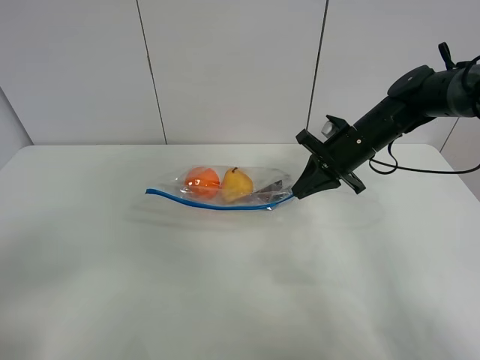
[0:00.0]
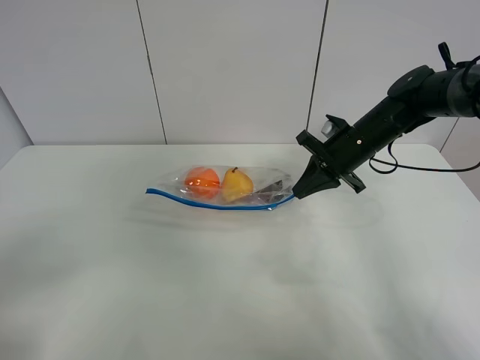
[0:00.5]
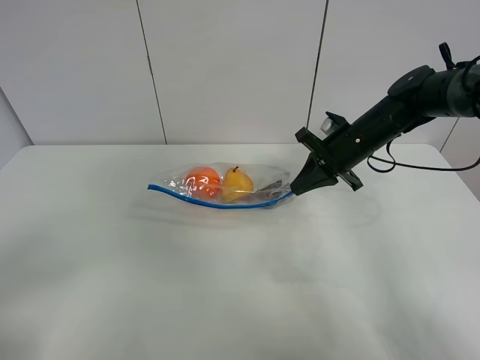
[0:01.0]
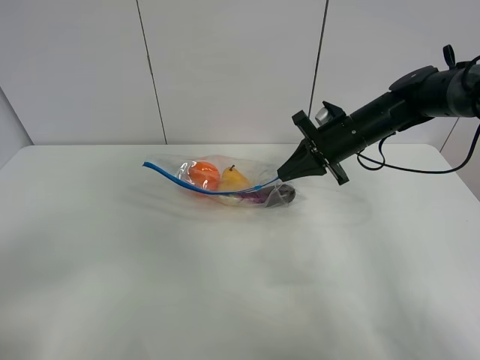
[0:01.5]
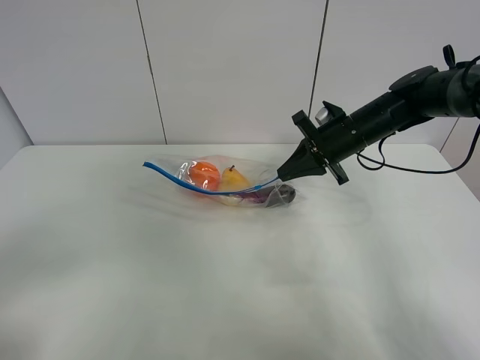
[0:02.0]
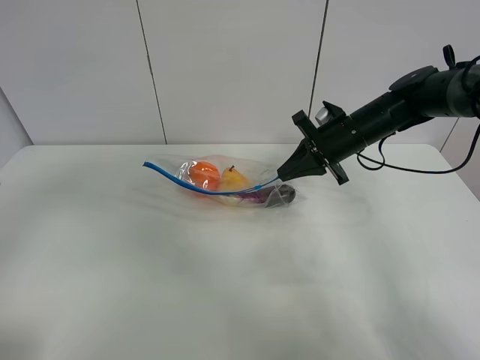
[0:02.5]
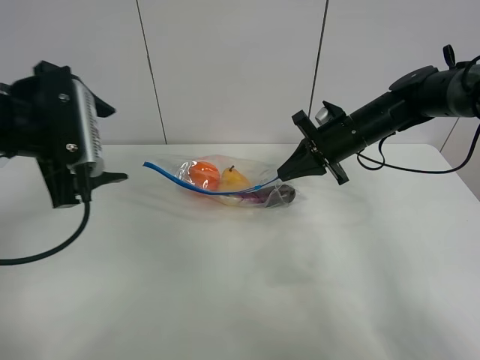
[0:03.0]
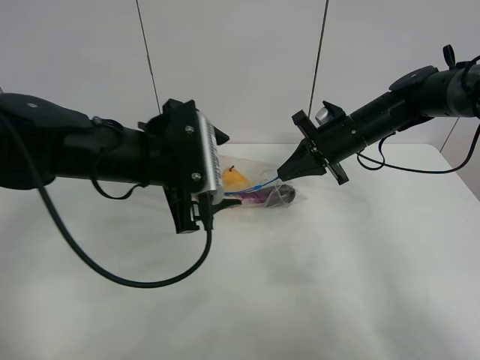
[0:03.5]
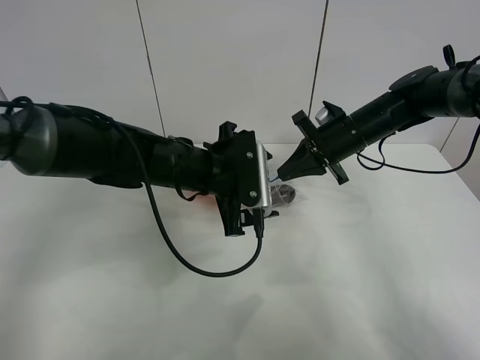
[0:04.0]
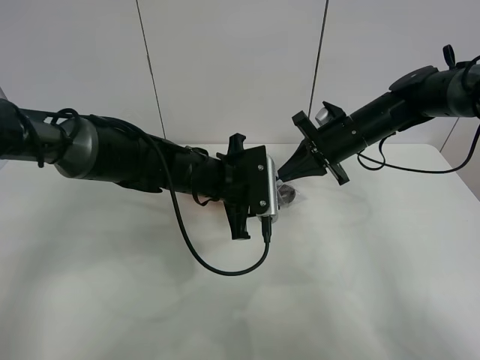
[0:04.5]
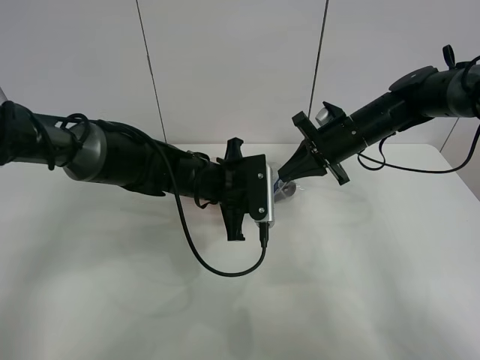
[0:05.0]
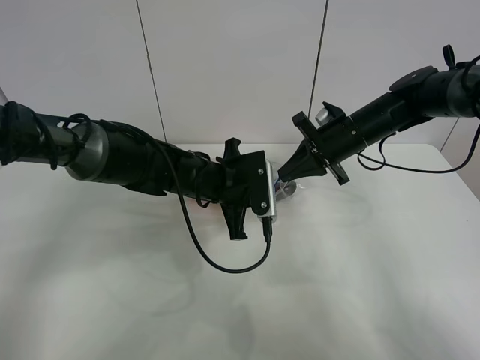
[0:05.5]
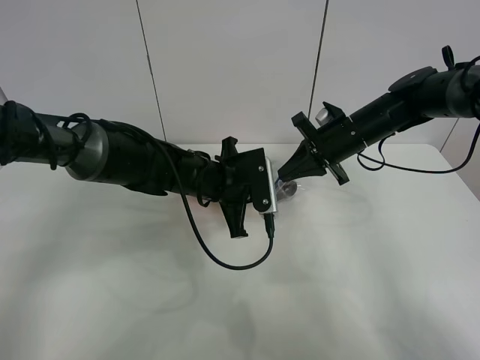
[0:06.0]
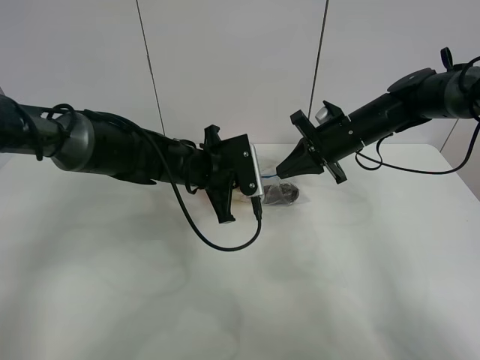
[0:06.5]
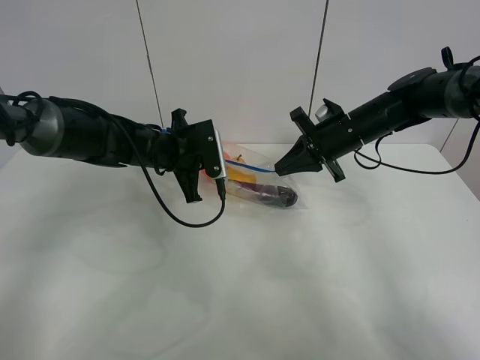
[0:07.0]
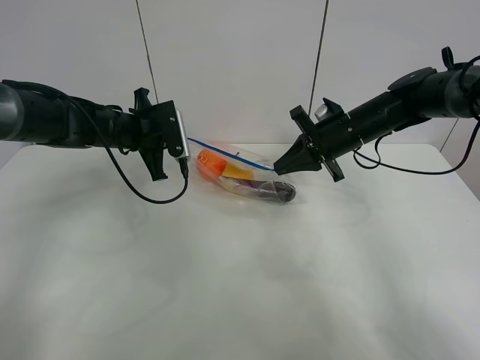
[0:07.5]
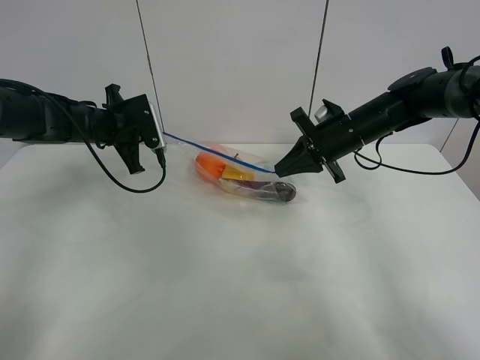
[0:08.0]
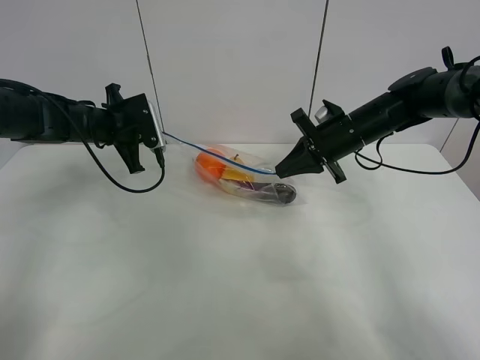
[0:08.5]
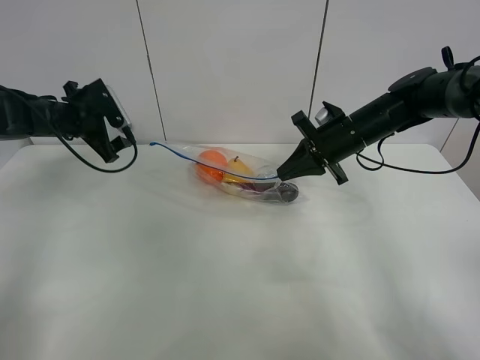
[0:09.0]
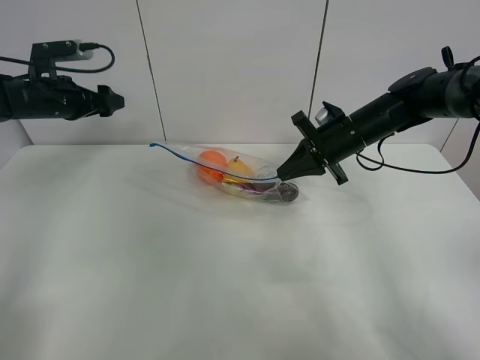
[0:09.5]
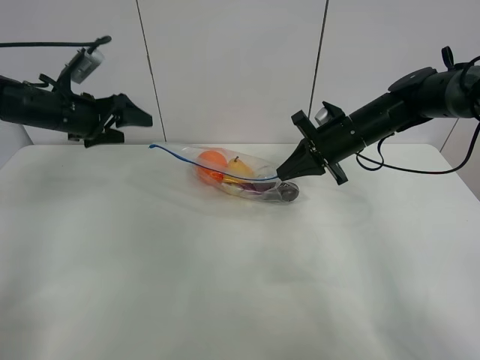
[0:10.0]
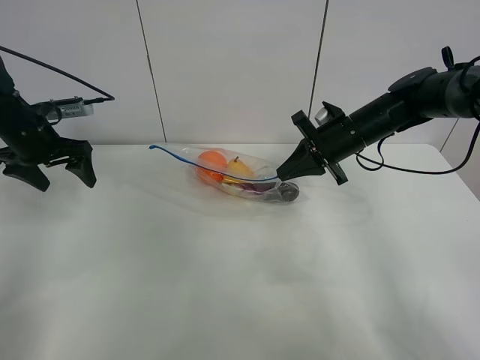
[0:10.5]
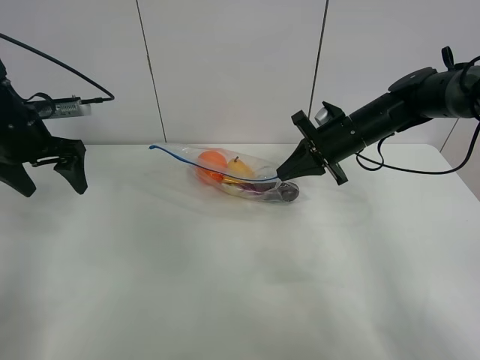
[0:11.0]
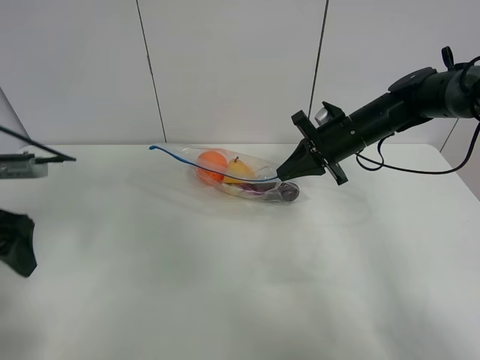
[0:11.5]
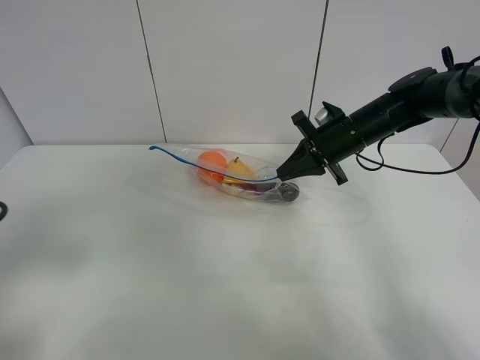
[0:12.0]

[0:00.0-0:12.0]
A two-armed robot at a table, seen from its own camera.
Step, 0:00.5 to 0:01.5: Lift the fruit bag with your right gripper.
Step, 0:02.0 to 0:08.5: Pull the fruit bag with left gripper.
0:00.0 to 0:02.0: The grippers make only small movements.
0:02.0 to 0:04.0: The left gripper is displaced forward and to the right by roughly 40 cm.
0:04.0 to 0:06.0: The left gripper closes its fingers.
0:06.0 to 0:08.0: The left gripper heads to the left and forward, covering roughly 20 cm.
0:08.0 to 0:10.0: The left gripper travels to the left by some 5 cm, and opens.
0:10.0 to 0:12.0: The left gripper travels backward by roughly 30 cm.

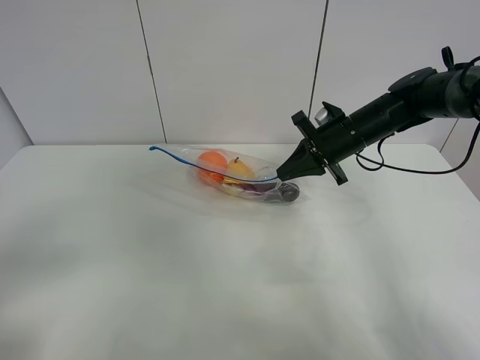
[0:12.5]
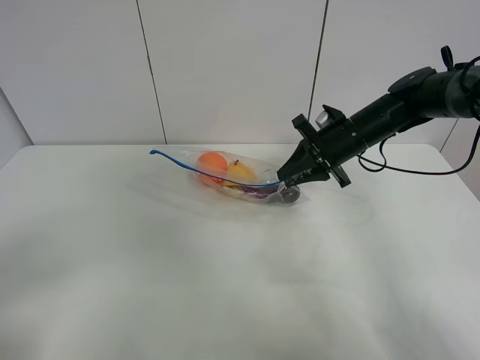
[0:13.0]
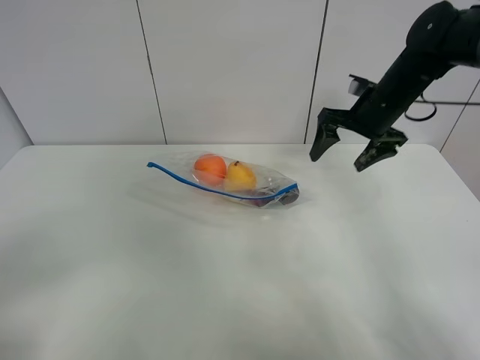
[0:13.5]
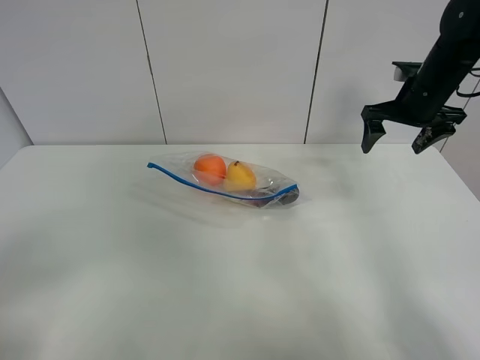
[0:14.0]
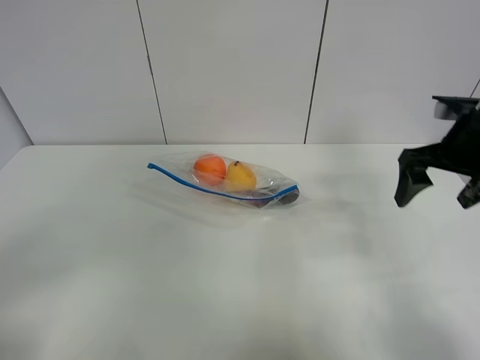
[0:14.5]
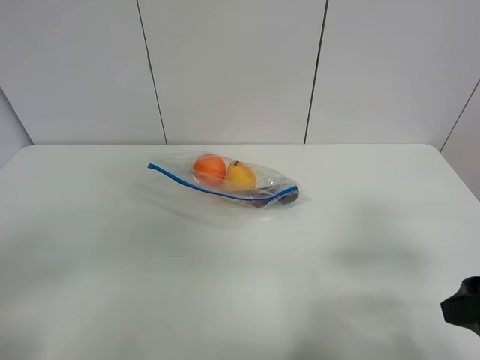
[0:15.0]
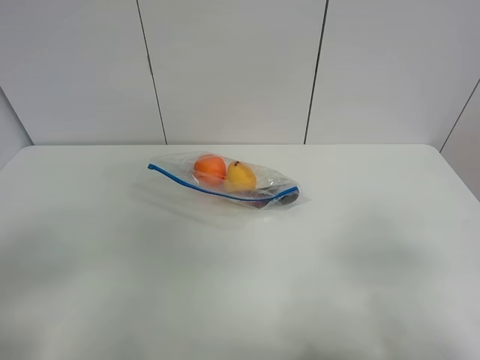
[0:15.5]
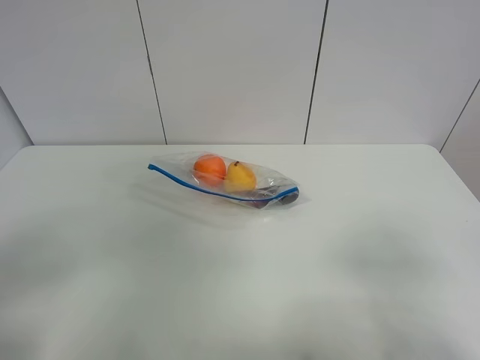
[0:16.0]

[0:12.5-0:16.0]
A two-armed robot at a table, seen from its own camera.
0:12.5 to 0:14.5: The right gripper is displaced backward, to the right and upward by approximately 20 cm, and opens its fingers.
0:14.5 to 0:16.0: The right gripper travels backward by roughly 30 cm.

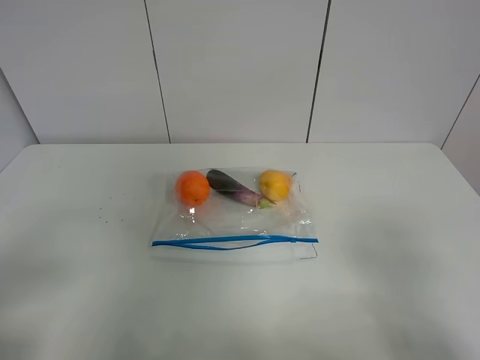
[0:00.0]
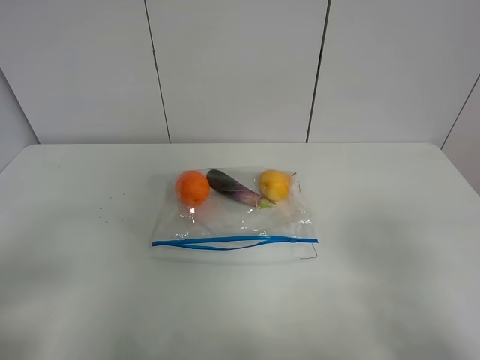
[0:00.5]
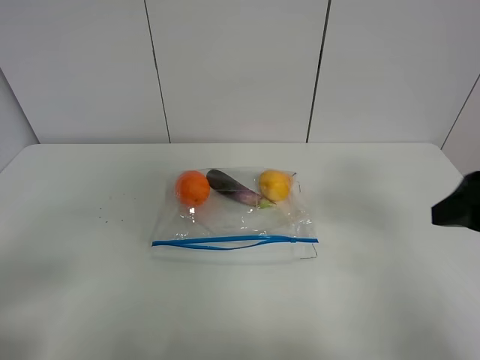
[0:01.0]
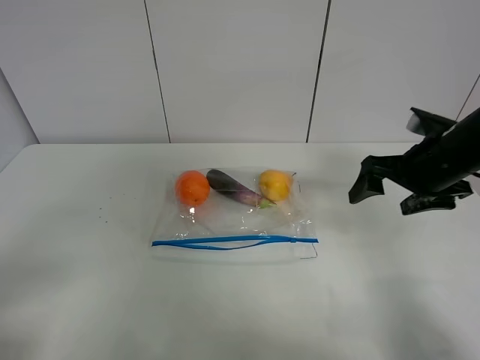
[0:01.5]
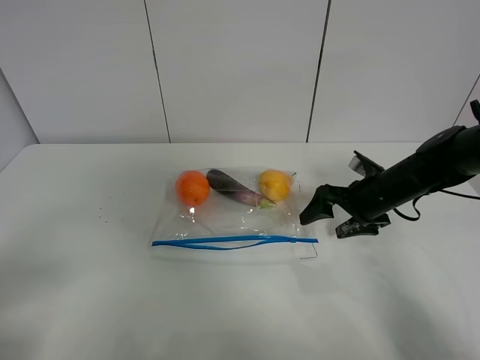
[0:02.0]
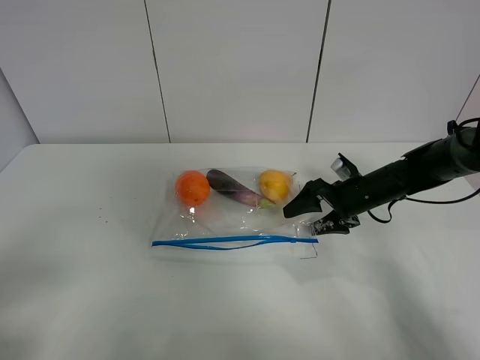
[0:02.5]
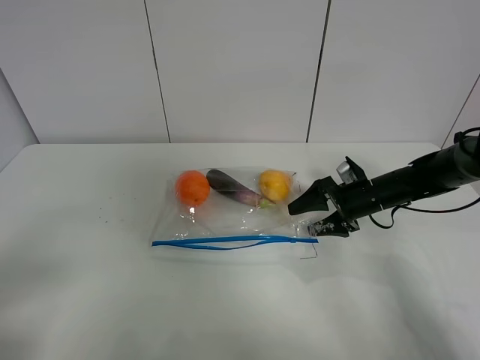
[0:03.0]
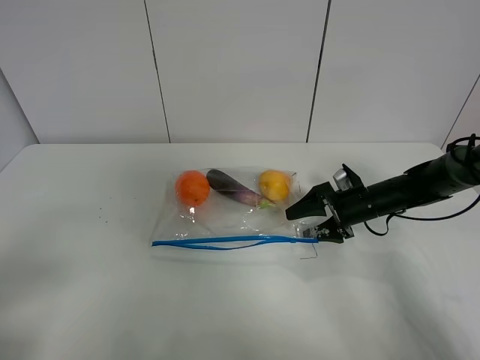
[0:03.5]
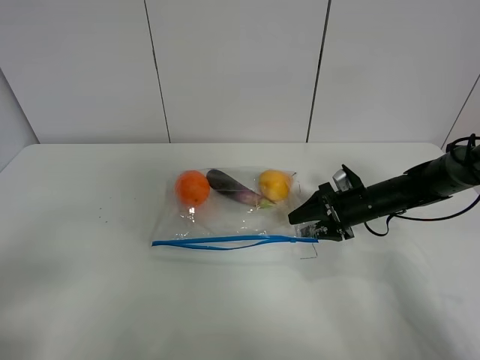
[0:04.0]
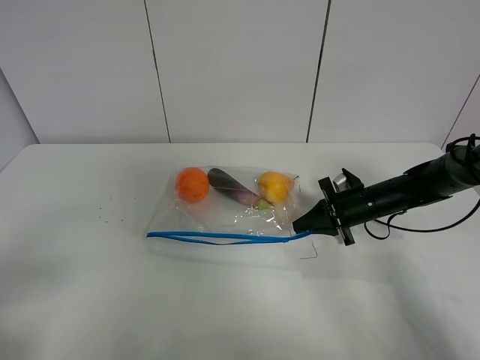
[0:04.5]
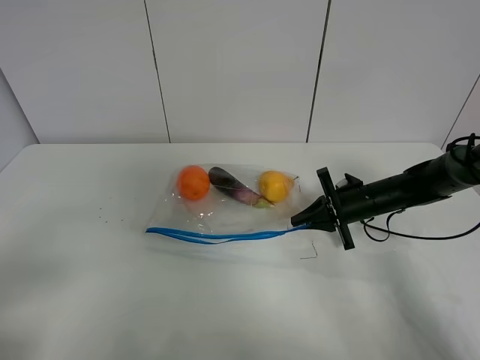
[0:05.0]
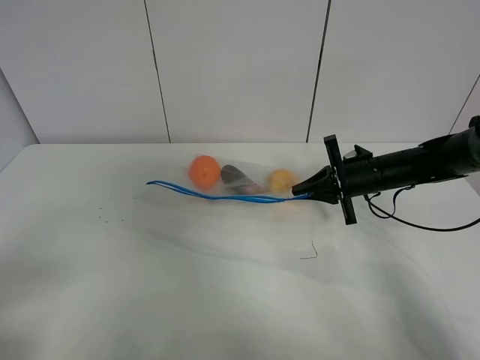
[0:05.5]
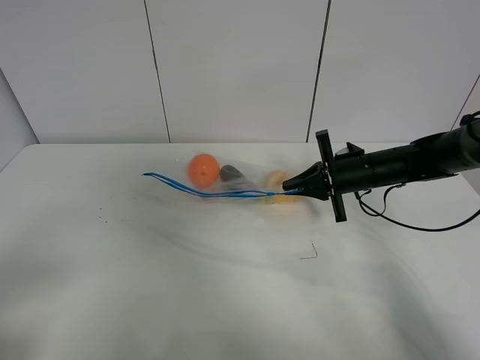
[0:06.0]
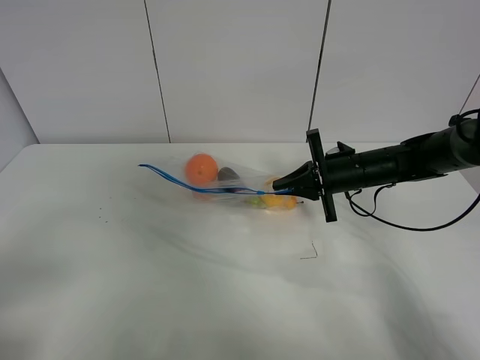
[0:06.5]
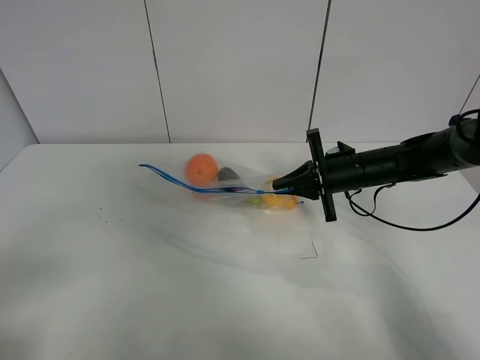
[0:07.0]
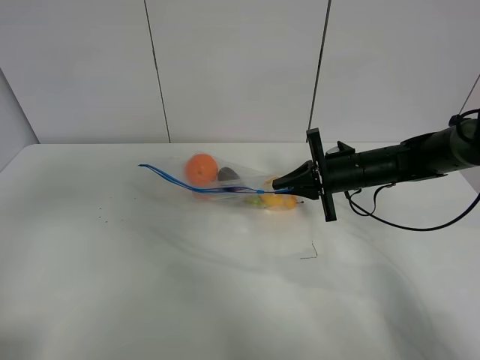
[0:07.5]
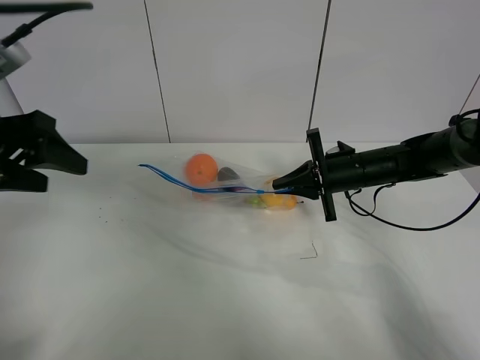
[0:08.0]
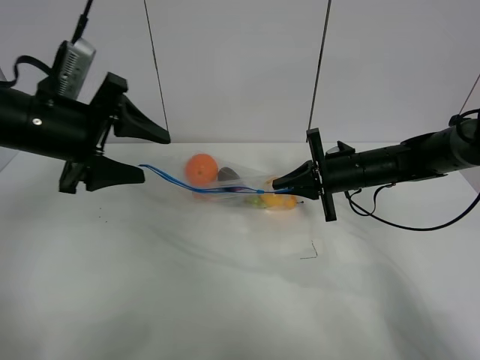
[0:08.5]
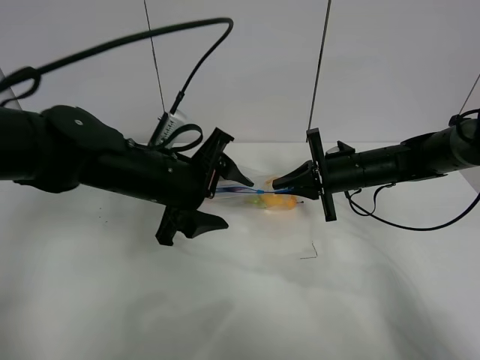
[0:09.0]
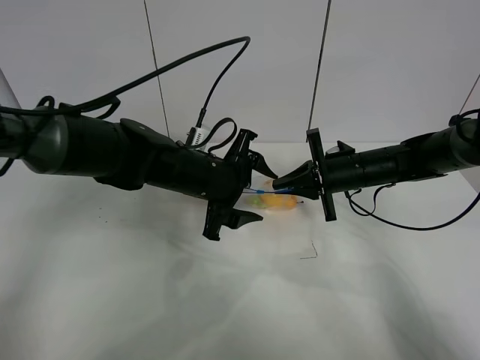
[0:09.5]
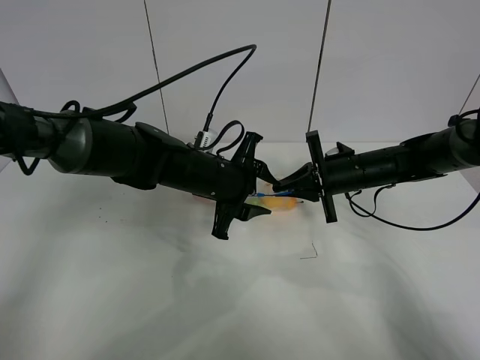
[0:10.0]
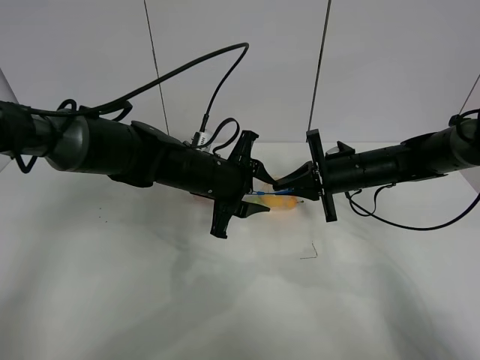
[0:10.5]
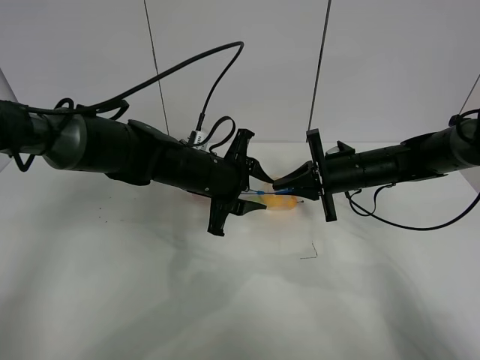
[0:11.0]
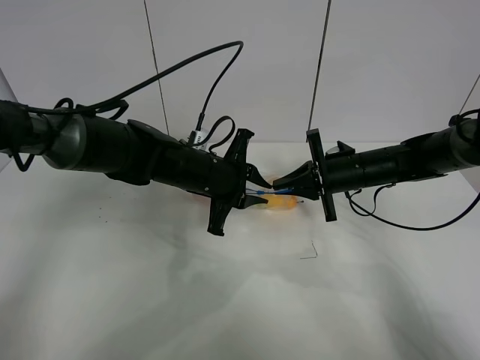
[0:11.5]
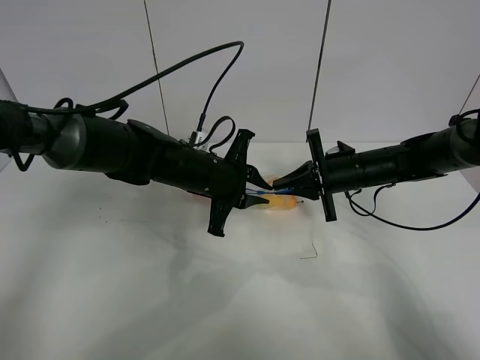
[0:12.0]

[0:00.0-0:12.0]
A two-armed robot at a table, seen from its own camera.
Step, 0:00.0 to 0:04.0: Grasp the fruit bag with right gripper.
Step, 0:04.5 to 0:06.0: Lift the fruit bag with your right gripper.
0:00.0 to 0:02.0: The right gripper travels forward and downward by roughly 35 cm.
0:02.0 to 0:04.0: The right gripper travels downward by approximately 5 cm, and closes.
0:04.0 to 0:06.0: The right gripper shifts roughly 5 cm upward, and closes its fingers.
0:06.0 to 0:08.0: The left gripper moves forward, roughly 25 cm.
0:08.0 to 0:10.0: The left gripper is displaced to the right, downward and forward by about 30 cm.
0:10.0 to 0:12.0: The left gripper closes its fingers.
